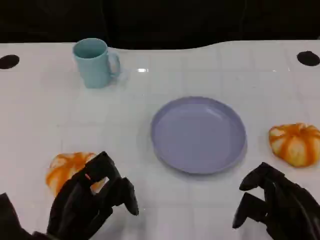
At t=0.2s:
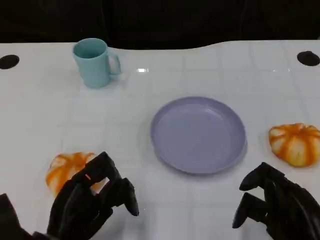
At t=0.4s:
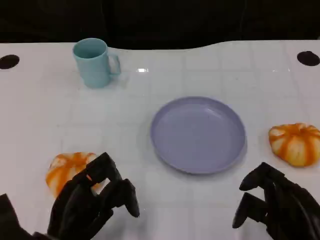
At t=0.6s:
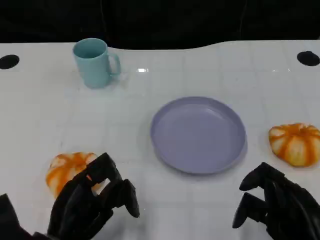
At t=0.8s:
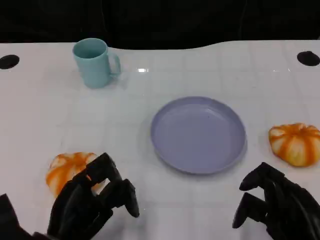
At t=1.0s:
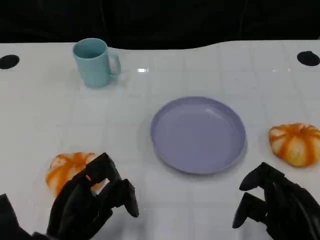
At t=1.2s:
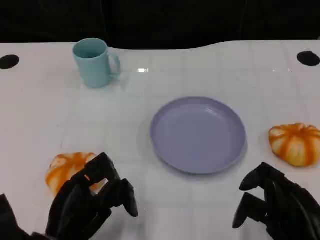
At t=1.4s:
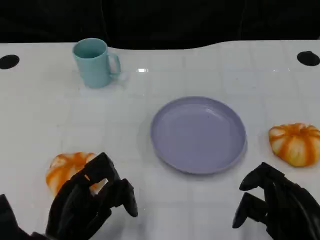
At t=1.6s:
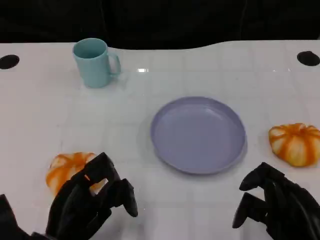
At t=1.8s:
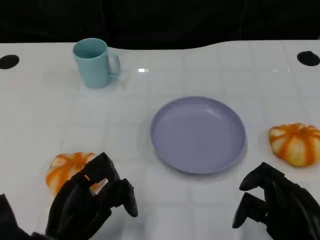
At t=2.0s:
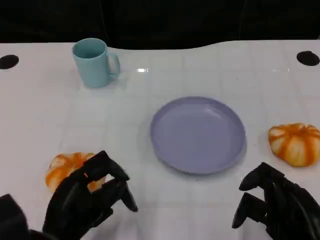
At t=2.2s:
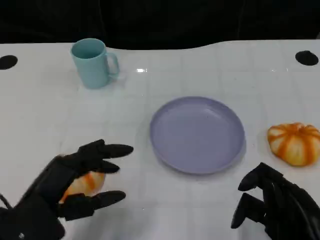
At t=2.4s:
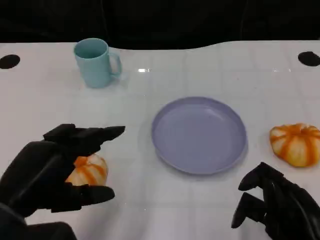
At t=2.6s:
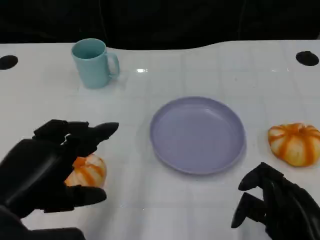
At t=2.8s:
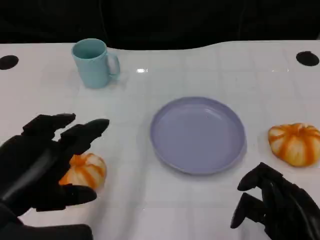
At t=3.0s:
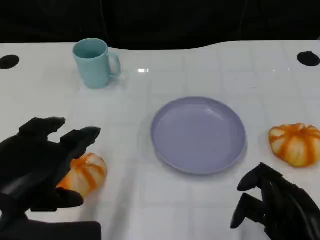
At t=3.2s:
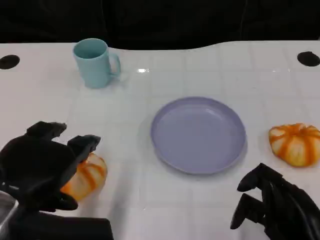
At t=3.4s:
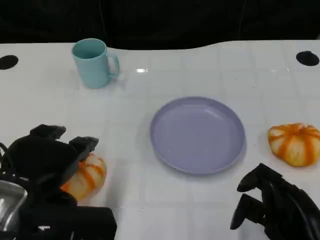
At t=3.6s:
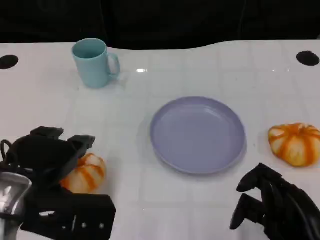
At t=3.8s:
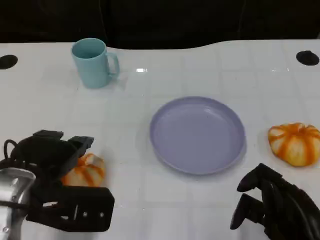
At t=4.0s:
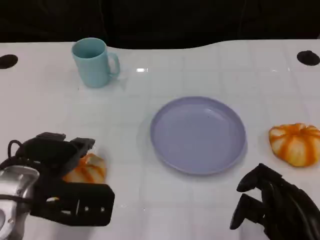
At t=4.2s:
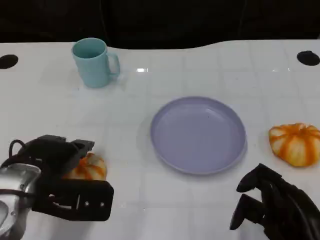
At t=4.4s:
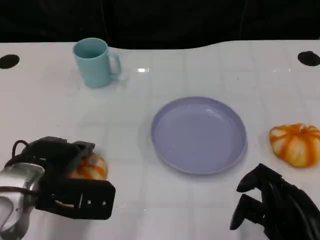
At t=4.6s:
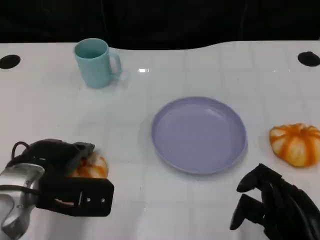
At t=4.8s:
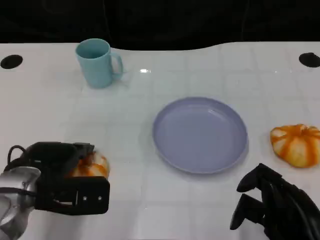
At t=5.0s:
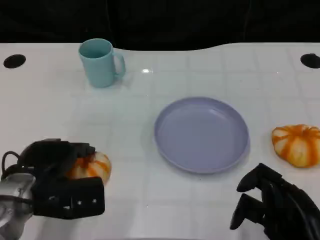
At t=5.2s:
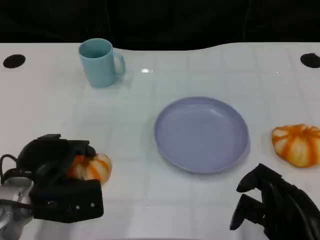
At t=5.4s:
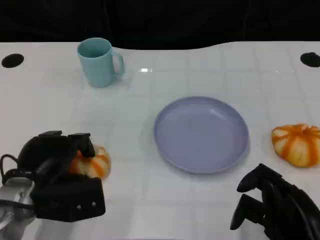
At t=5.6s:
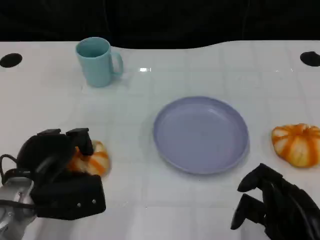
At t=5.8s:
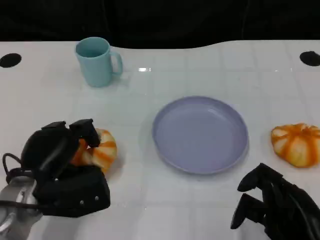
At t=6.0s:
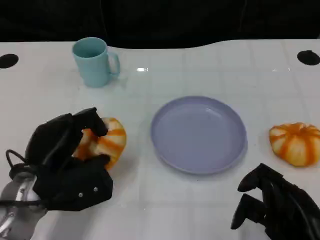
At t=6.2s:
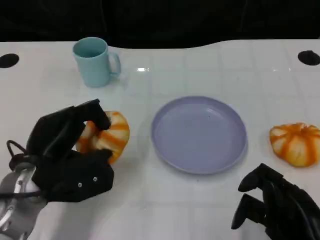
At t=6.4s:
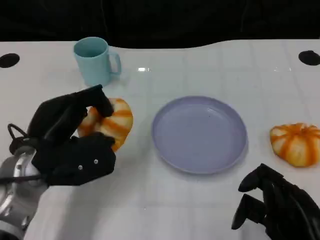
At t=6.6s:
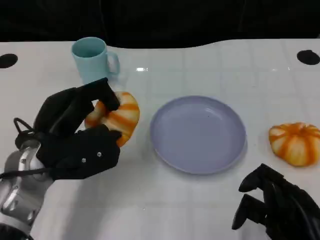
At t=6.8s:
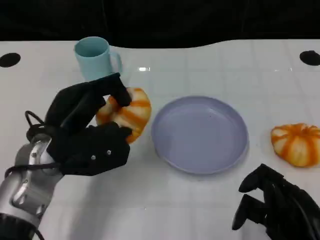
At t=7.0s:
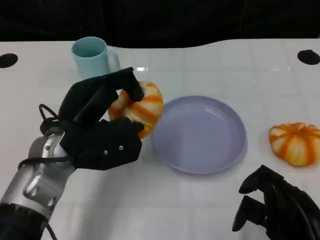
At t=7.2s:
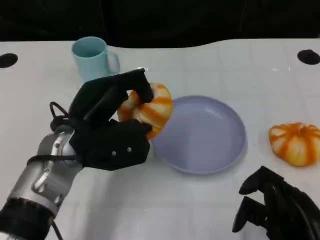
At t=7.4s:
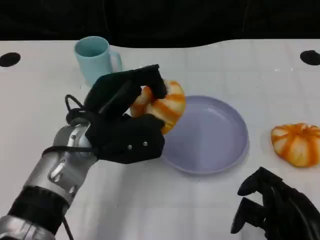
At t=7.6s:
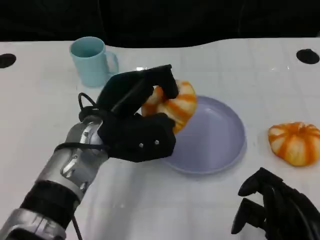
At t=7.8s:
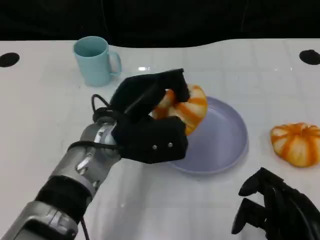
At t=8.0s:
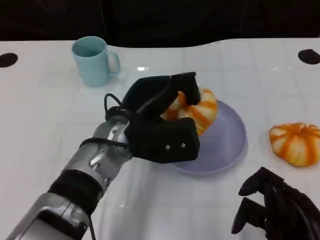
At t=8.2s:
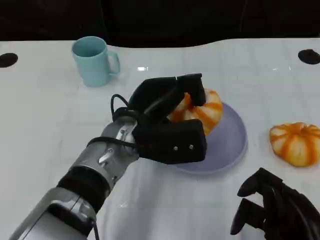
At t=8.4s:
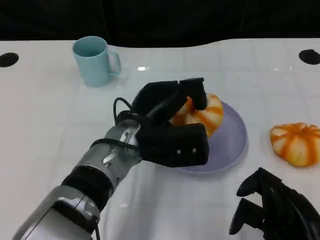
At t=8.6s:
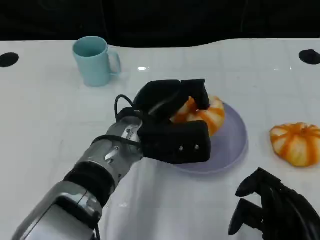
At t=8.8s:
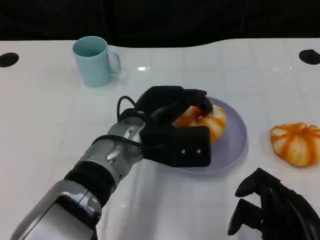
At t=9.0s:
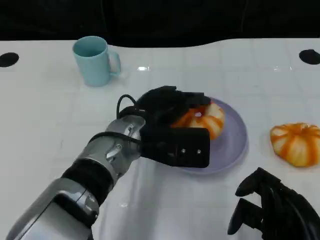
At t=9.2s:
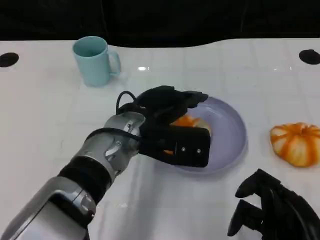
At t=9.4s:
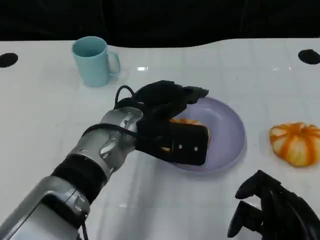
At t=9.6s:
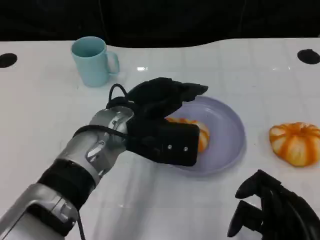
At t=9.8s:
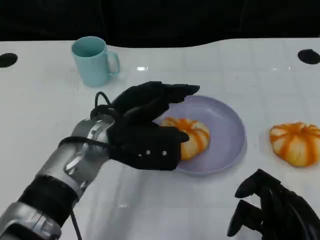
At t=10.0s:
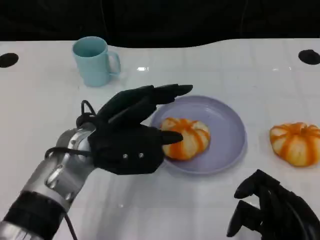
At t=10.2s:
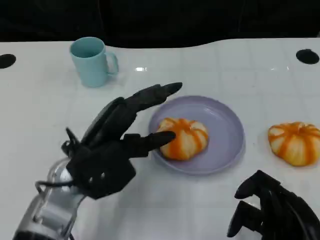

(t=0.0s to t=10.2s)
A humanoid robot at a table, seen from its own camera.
Task of the whole recording: Grasp the bread from the table and place it into the plate.
t=0.0s - t=1.4s: Both hands stay put.
t=1.4s - t=3.0s: The left hand moves upward, roughly 15 cm.
t=3.0s - t=4.4s: The left hand shifts some 10 cm forward and downward.
t=5.8s - t=7.2s: The left hand heads upward and to the right, covering roughly 10 cm.
t=7.2s - t=8.8s: The left hand is displaced to the right by some 10 cm.
t=8.8s - t=10.2s: The left hand shifts roughly 10 cm to the left and backward.

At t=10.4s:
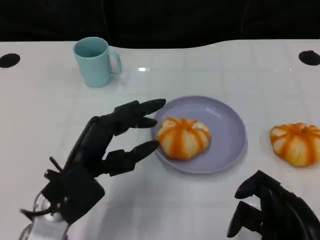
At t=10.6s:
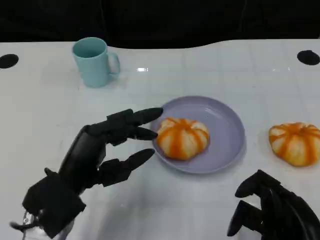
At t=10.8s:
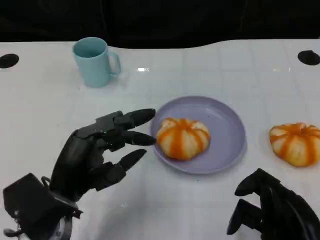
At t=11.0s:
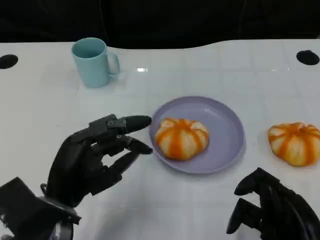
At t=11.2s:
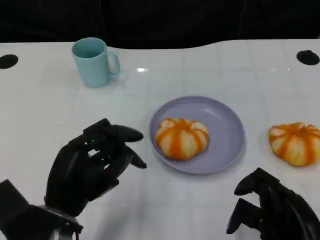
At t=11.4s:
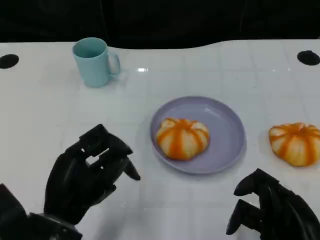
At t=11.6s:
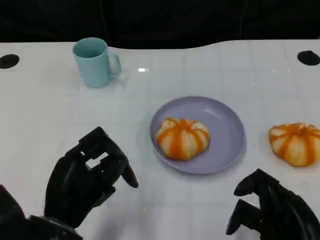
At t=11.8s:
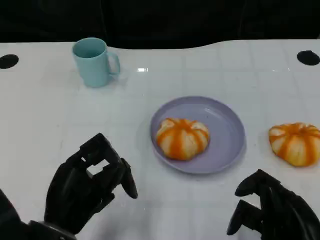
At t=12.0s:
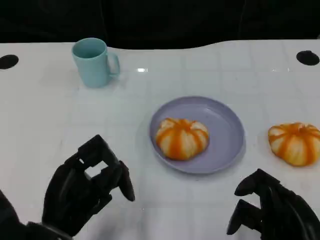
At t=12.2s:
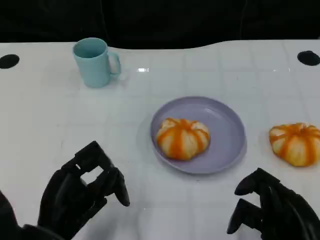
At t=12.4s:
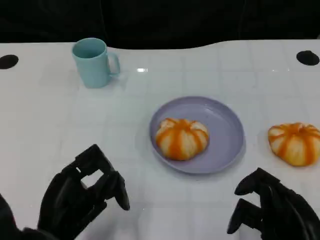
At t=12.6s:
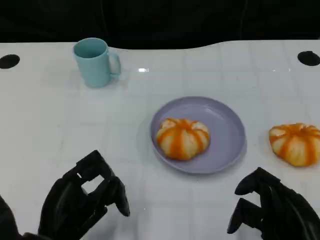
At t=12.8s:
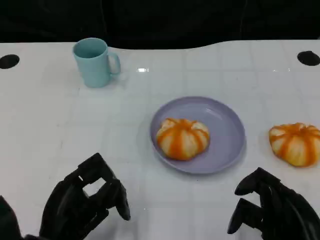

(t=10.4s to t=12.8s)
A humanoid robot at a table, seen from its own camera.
Task of the whole recording: Grasp the bread from the table and place it into the plate.
t=10.4s - t=11.6s: The left hand ends up roughly 5 cm from where it was.
t=11.6s - t=12.8s: The hands stay close to where they were, moving slightly.

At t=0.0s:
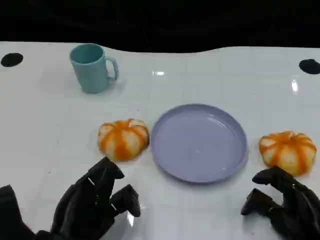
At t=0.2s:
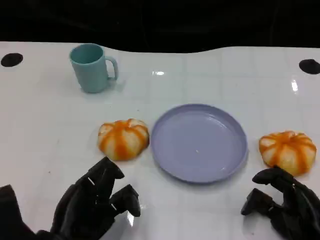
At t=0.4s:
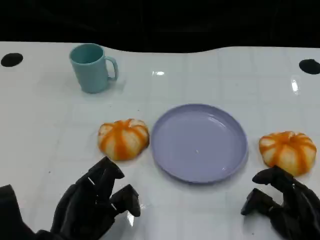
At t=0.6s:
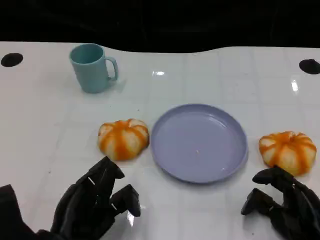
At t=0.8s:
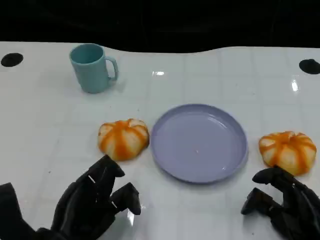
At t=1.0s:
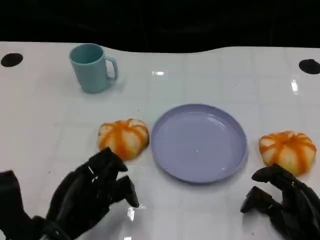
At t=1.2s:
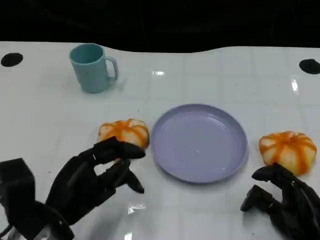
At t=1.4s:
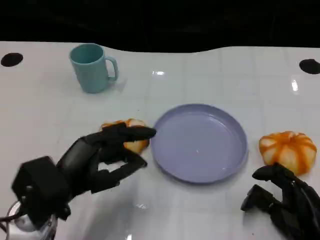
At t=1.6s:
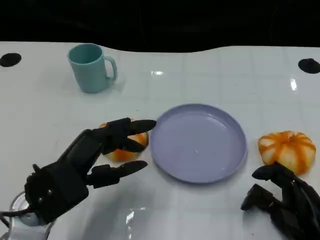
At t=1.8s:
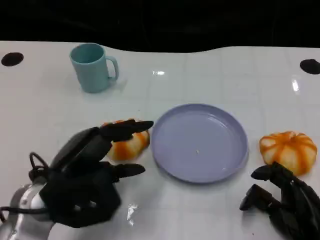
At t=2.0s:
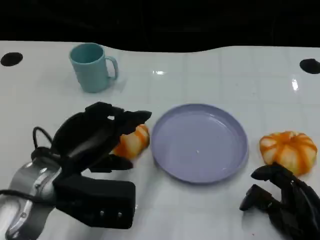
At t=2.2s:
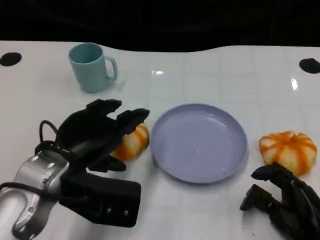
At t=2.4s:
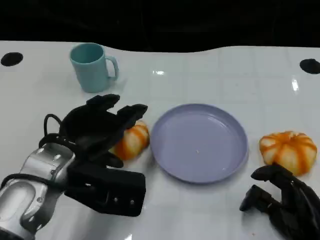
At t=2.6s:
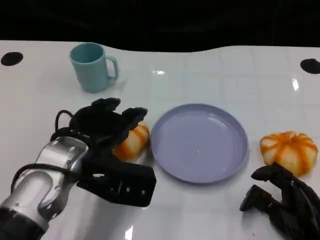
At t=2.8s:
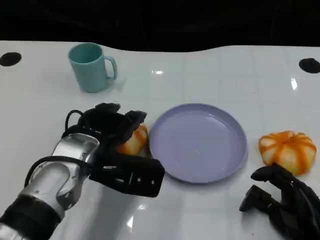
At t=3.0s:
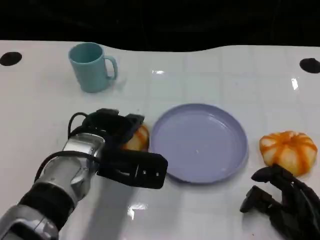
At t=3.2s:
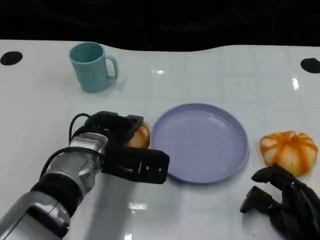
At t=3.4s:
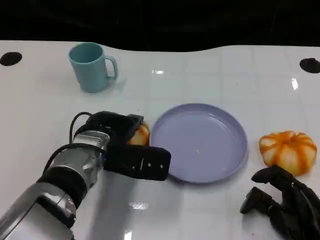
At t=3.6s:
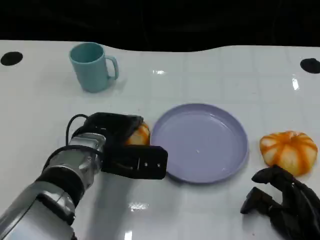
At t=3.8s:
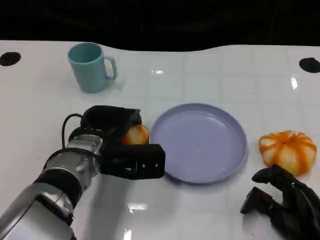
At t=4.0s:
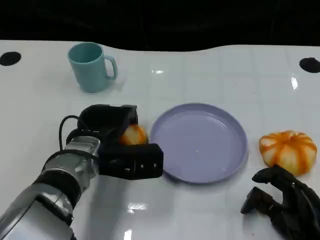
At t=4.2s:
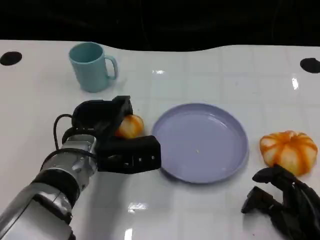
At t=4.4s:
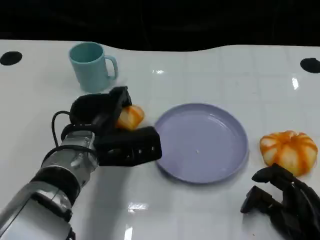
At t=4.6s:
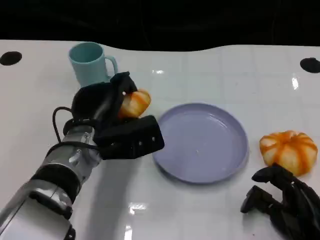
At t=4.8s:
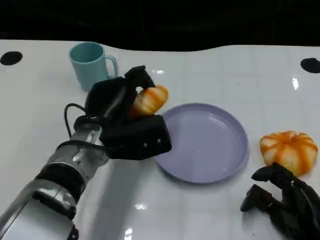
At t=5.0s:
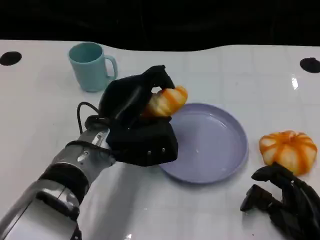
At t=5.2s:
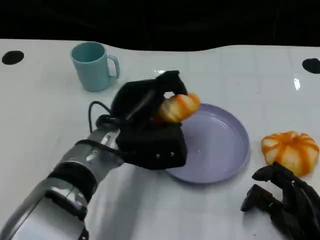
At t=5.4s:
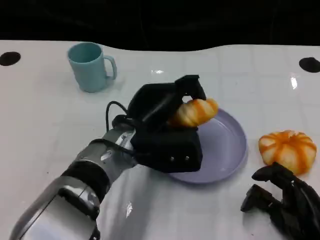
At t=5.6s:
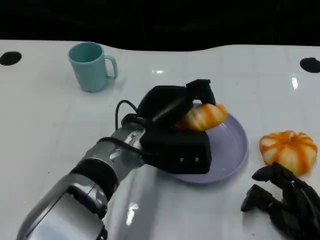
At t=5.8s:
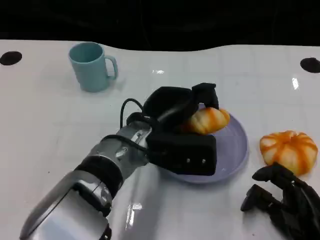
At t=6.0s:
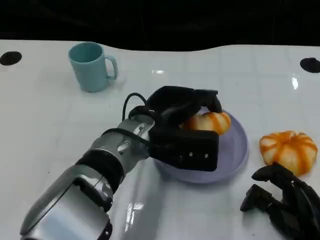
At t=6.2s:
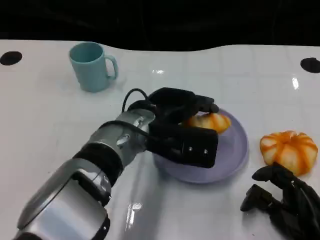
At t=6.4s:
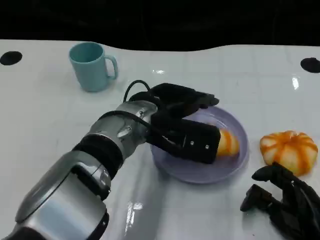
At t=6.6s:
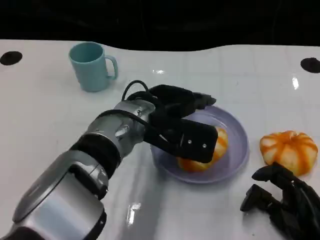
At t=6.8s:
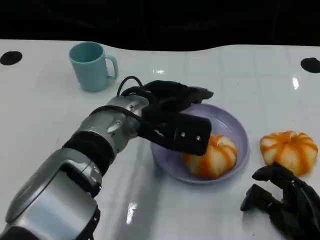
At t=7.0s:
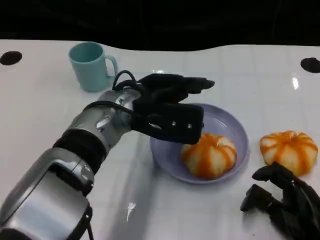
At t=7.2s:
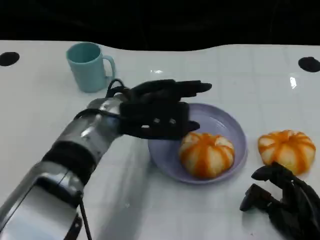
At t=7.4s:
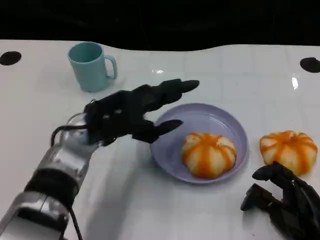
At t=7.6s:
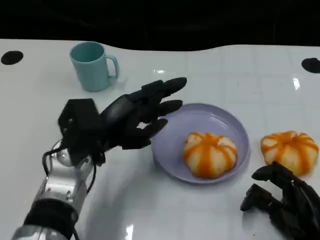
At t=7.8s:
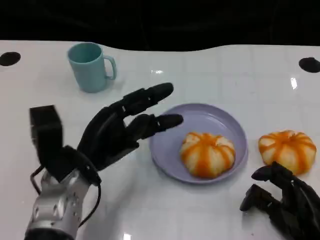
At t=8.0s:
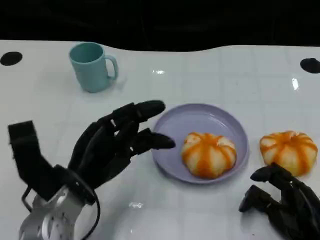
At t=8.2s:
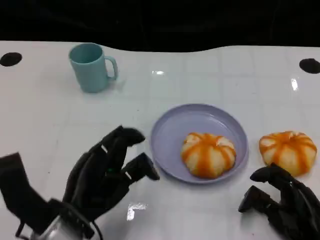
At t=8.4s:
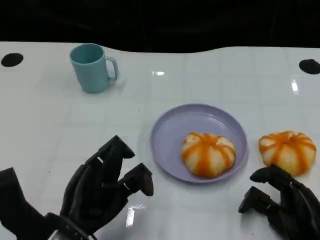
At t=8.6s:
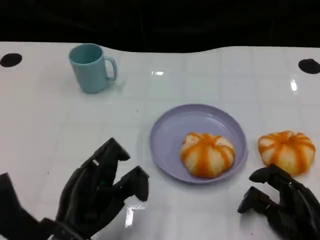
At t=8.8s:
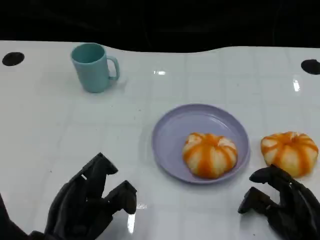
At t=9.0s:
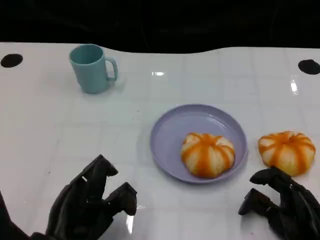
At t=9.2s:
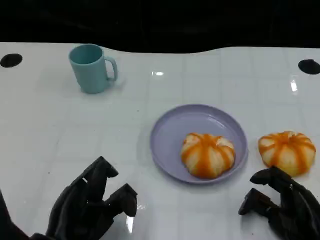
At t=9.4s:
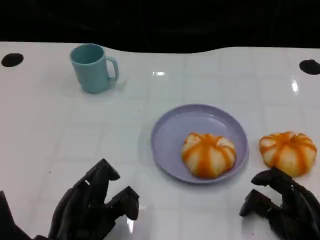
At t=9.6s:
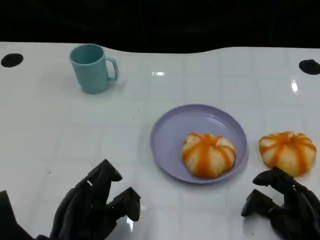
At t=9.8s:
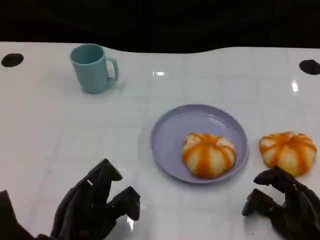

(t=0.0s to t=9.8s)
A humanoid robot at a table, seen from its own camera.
Task of the whole recording: Grasp the bread from the table and place it into the plate.
t=0.0s - t=1.4s: The left hand travels upward by approximately 5 cm.
t=1.4s - t=2.8s: The left hand shifts approximately 10 cm forward and to the right.
t=4.2s - t=5.6s: The left hand shifts about 10 cm to the right.
t=5.6s - t=7.0s: The left hand shifts by some 5 cm.
t=7.0s - t=8.4s: The left hand travels backward, to the left and downward by about 20 cm.
t=8.4s - t=9.8s: There are only small adjustments of the hands.
